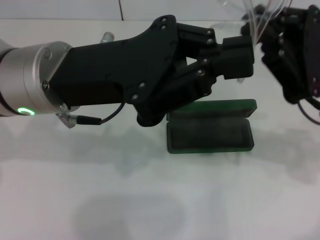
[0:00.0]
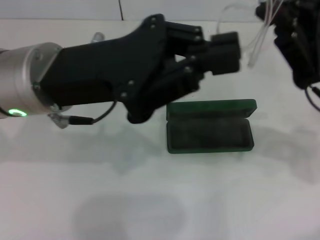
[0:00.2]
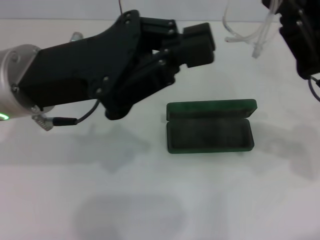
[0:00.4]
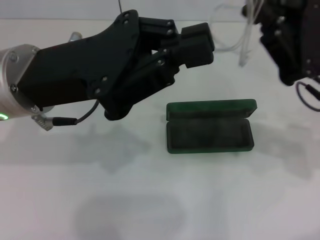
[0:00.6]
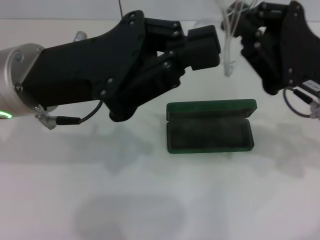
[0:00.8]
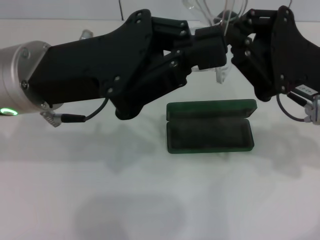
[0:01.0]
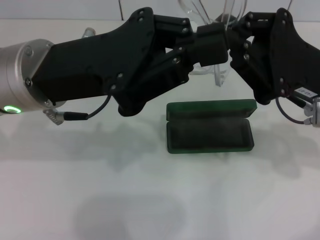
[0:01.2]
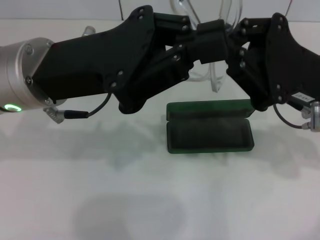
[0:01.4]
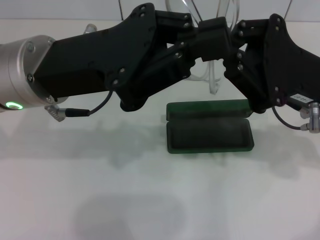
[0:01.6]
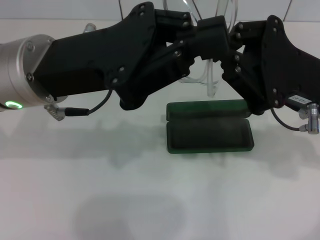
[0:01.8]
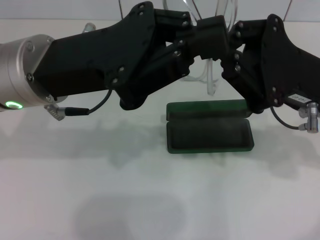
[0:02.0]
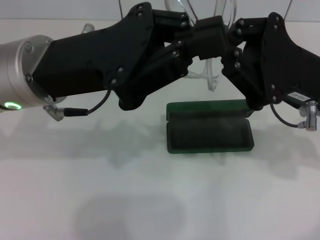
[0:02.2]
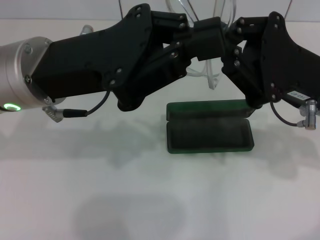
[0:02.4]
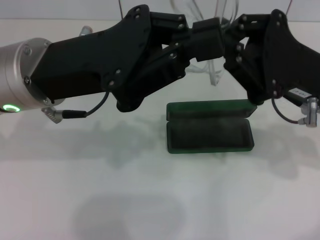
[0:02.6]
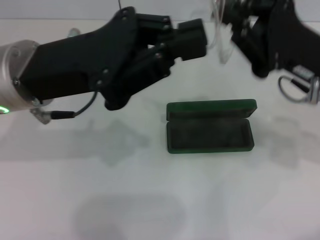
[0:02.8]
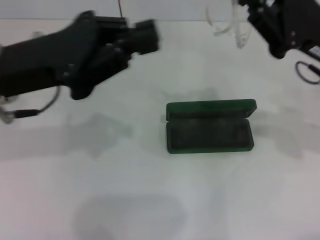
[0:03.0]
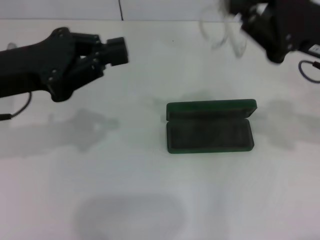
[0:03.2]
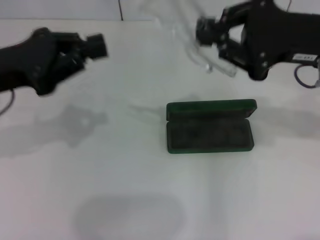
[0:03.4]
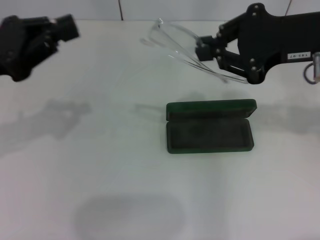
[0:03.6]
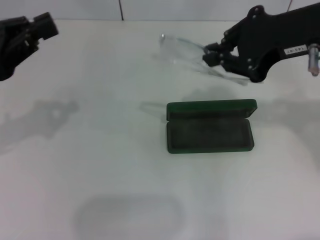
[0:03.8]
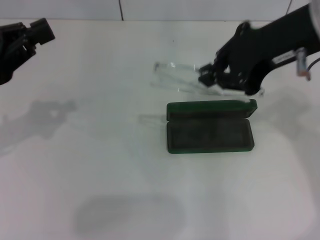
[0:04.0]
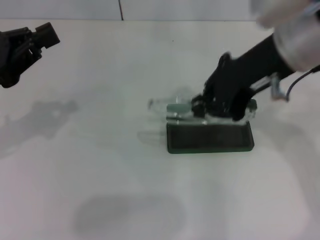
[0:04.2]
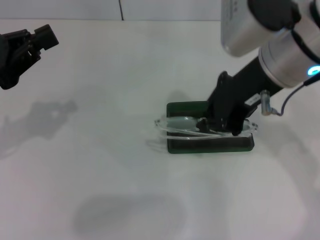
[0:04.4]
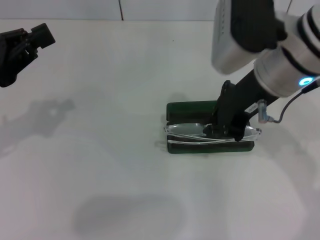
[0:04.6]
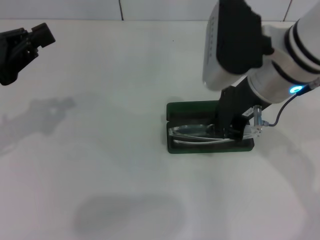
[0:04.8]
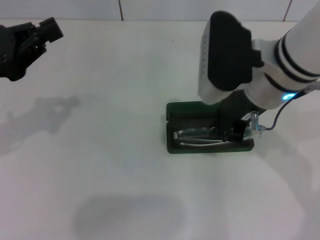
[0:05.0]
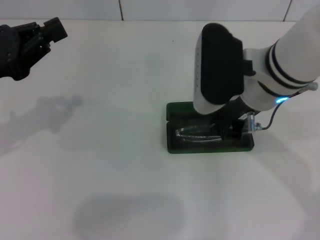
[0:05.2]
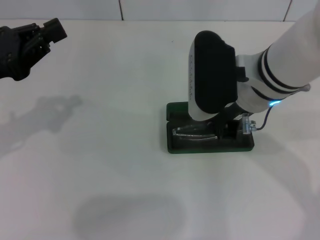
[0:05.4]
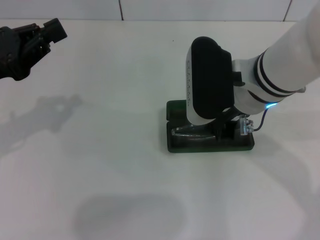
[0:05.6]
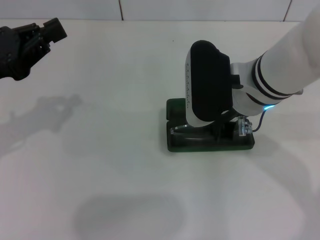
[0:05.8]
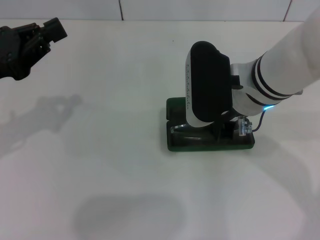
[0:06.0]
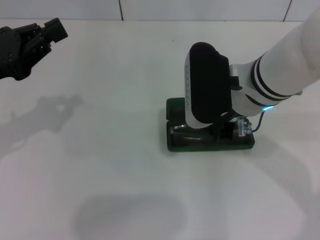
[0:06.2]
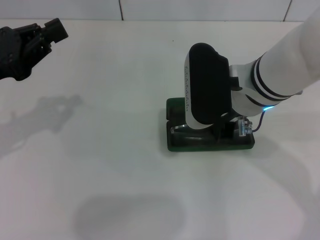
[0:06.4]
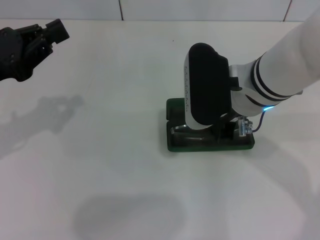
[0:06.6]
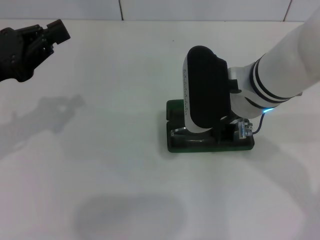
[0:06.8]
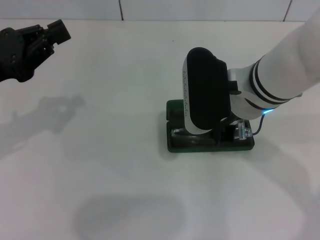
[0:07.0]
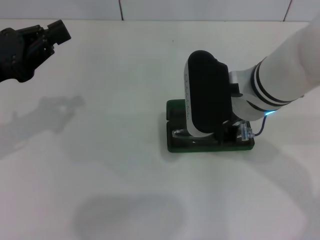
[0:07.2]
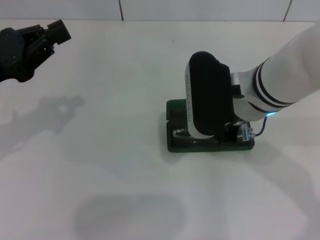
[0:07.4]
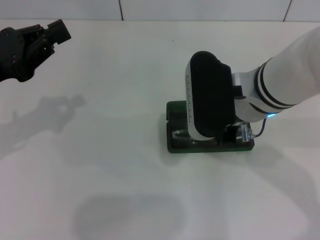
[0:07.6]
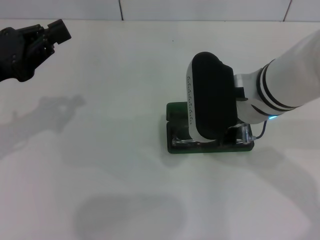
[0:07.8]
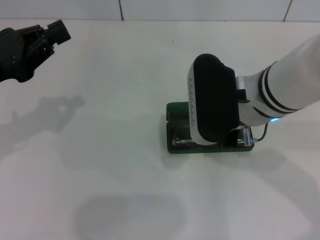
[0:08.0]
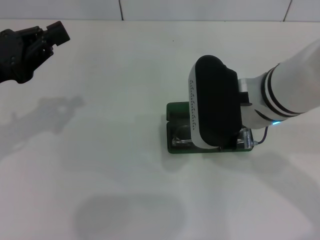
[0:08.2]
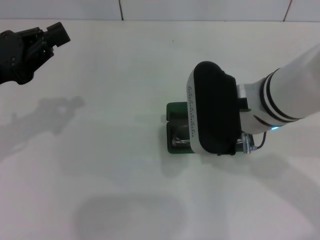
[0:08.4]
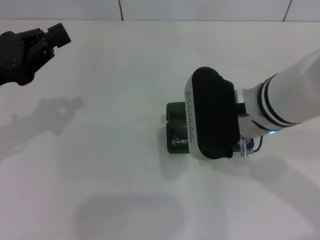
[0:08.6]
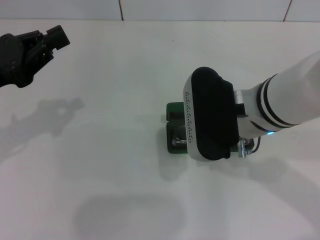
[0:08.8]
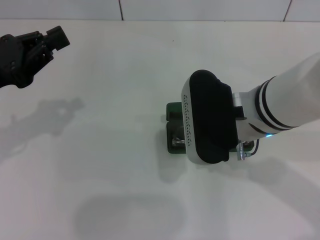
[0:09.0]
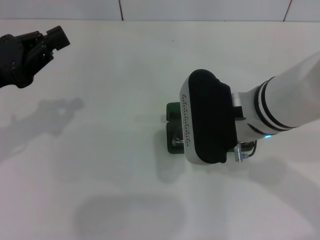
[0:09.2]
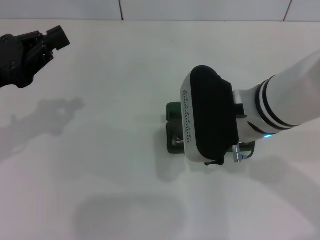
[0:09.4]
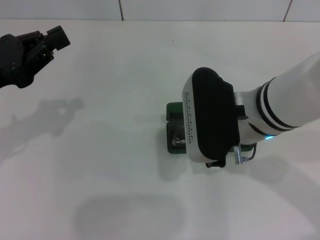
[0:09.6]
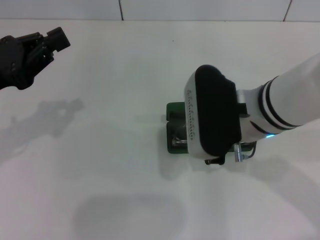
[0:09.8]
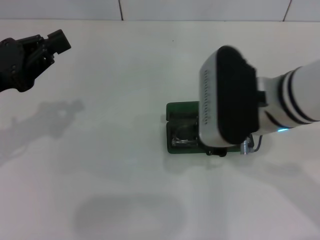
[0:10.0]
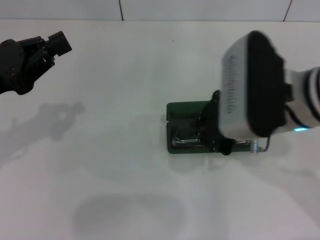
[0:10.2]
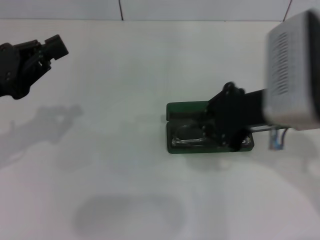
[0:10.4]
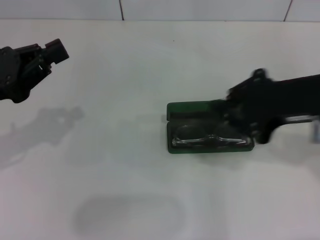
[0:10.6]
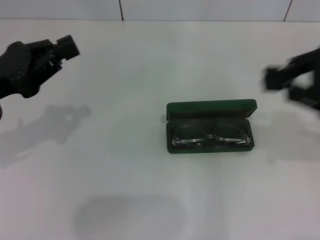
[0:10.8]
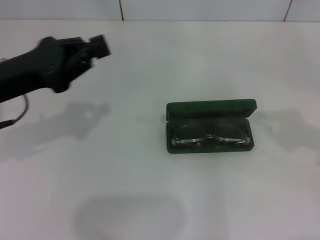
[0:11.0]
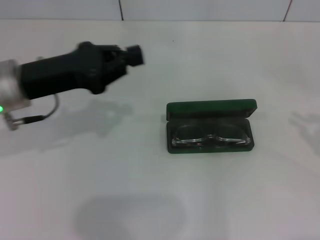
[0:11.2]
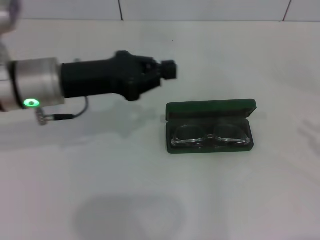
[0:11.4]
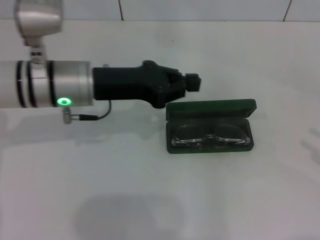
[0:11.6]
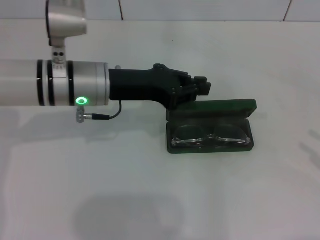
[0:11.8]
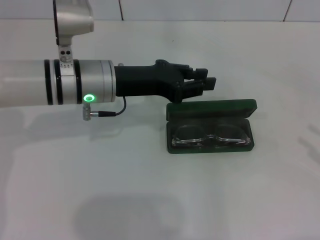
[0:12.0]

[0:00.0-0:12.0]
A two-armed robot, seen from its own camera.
Step, 0:02.0 to 0:07.6: Put the glasses into the case with your right hand.
0:01.6 to 0:03.0: The left gripper is displaced to the left by about 5 cm.
0:03.0 to 0:04.4: The left gripper moves to the left, about 10 cm, while the right gripper heads to the left and upward, covering approximately 15 cm.
0:04.4 to 0:06.0: The right gripper shifts approximately 10 cm downward.
0:06.0 to 0:09.0: The grippers move only a little.
0:09.0 to 0:10.4: The right gripper goes approximately 5 cm to the right.
0:10.4 to 0:12.0: The left gripper is displaced to the right and forward by approximately 20 cm. The right gripper shifts some 25 cm to the right.

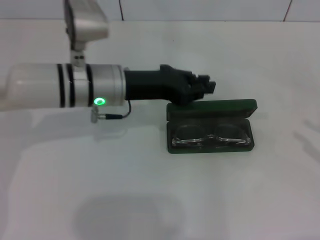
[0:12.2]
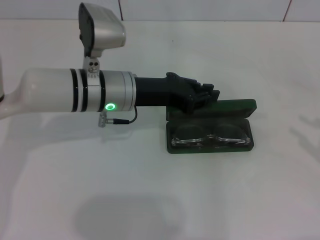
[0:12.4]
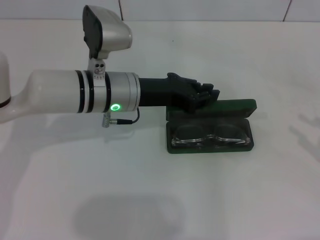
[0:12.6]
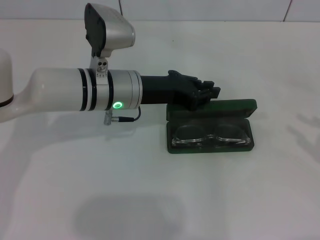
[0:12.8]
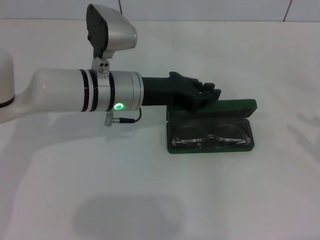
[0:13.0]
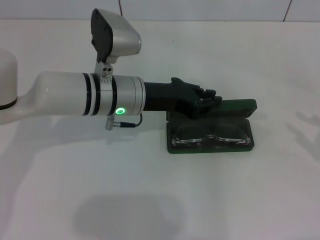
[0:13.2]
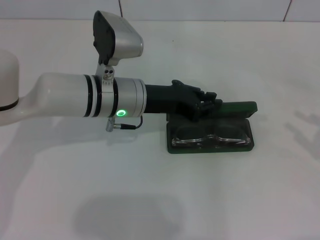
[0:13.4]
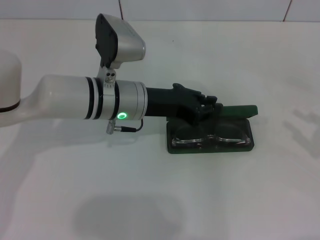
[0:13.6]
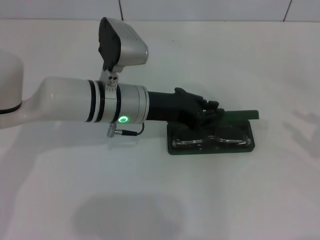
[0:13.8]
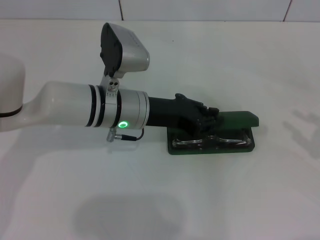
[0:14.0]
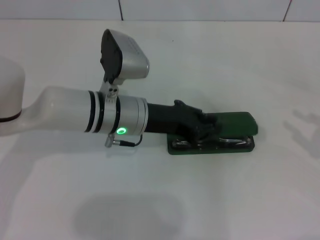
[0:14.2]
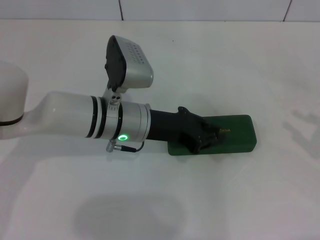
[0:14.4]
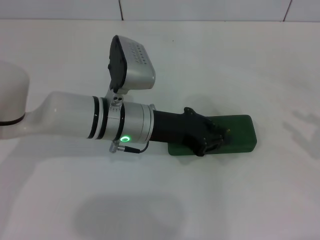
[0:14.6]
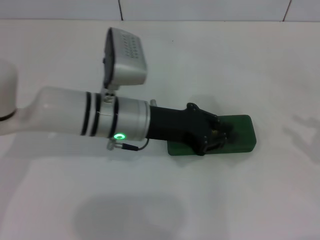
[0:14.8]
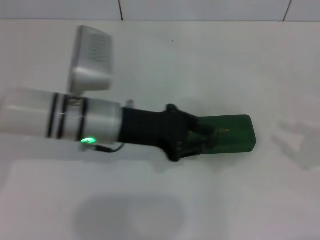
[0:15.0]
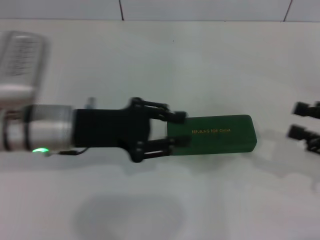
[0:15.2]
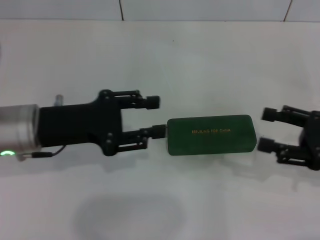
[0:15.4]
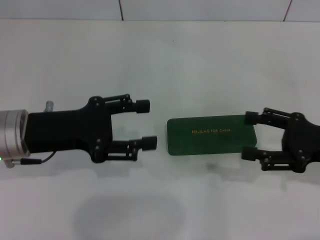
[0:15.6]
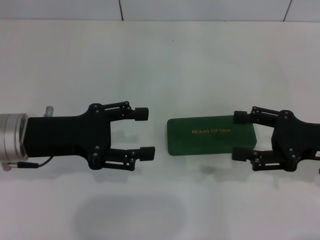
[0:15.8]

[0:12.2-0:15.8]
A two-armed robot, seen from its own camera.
Step, 0:12.2 to 0:14.4: Close the glasses case with your left hand.
0:12.2 to 0:14.0: The grippers move only a little.
0:14.0 to 0:15.8: The left gripper is displaced to the left and backward by about 15 cm, and opens its fingers, while the right gripper is displaced to the left and forward by some 15 cm, and opens its fingers.

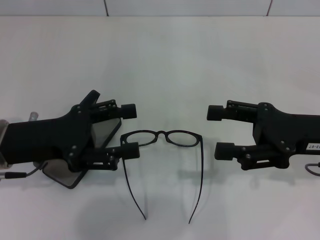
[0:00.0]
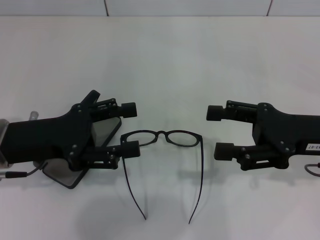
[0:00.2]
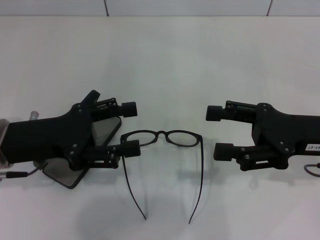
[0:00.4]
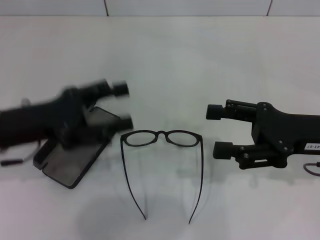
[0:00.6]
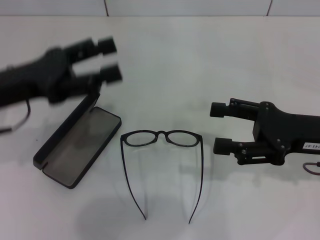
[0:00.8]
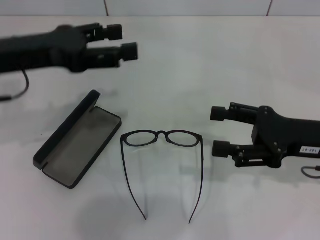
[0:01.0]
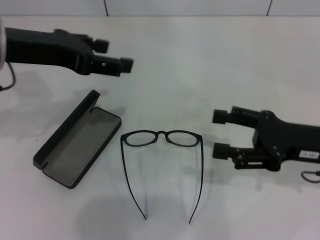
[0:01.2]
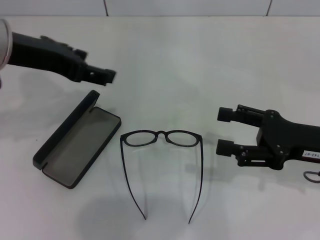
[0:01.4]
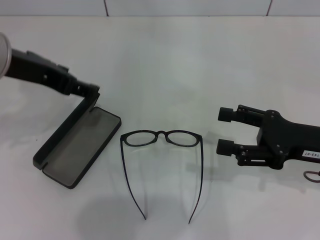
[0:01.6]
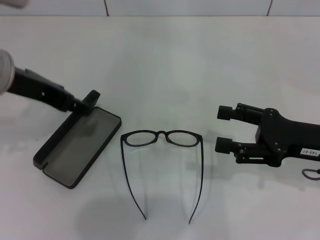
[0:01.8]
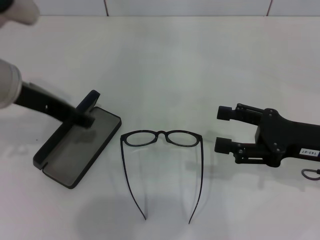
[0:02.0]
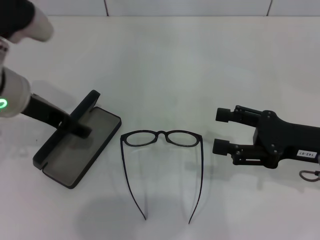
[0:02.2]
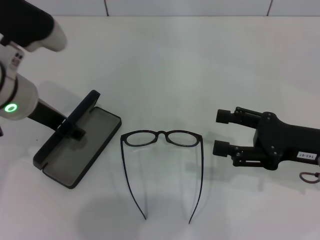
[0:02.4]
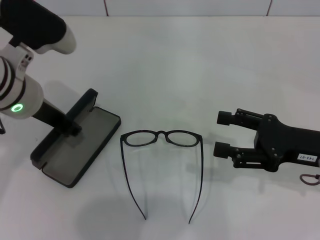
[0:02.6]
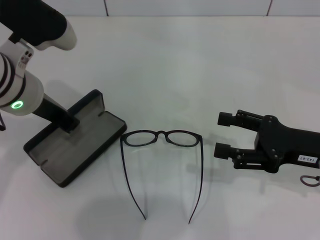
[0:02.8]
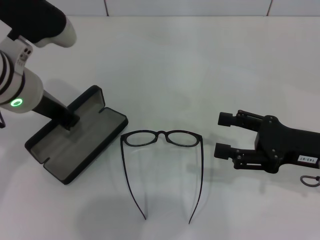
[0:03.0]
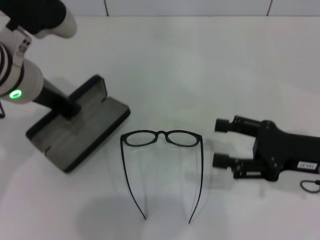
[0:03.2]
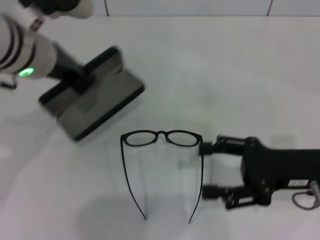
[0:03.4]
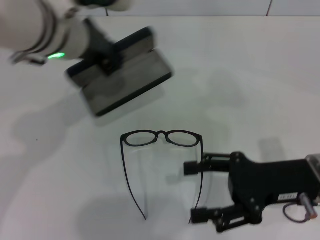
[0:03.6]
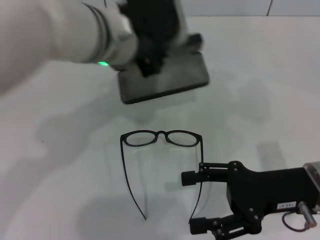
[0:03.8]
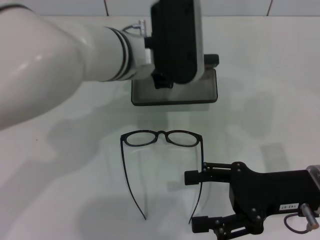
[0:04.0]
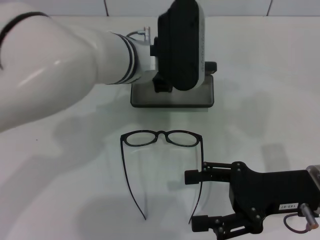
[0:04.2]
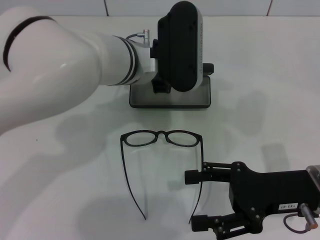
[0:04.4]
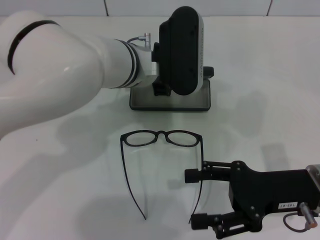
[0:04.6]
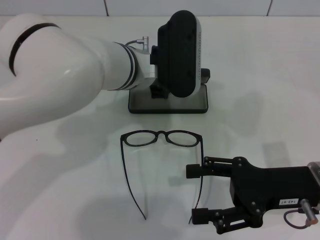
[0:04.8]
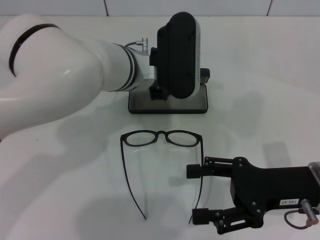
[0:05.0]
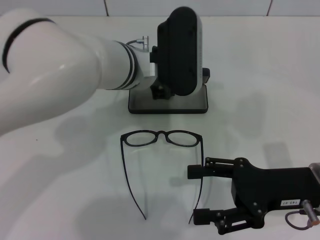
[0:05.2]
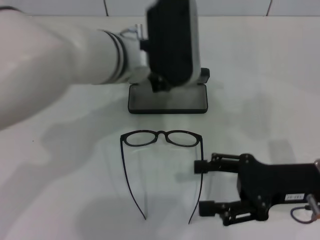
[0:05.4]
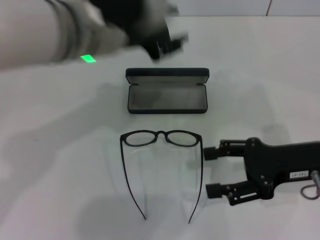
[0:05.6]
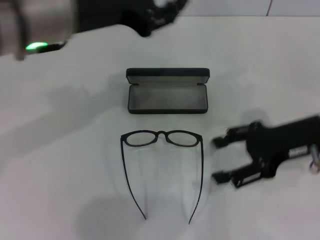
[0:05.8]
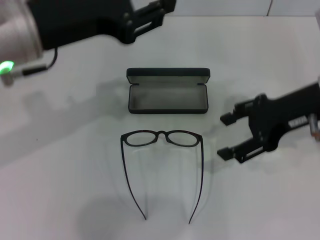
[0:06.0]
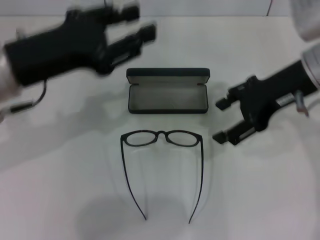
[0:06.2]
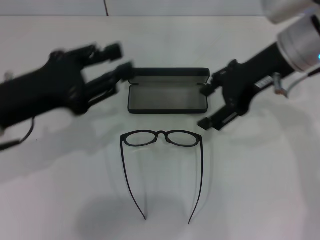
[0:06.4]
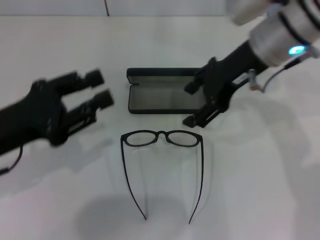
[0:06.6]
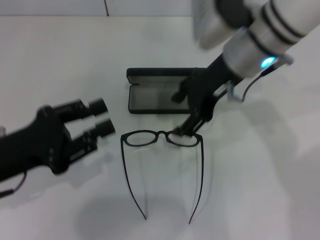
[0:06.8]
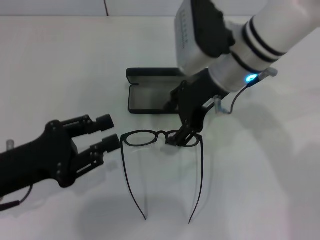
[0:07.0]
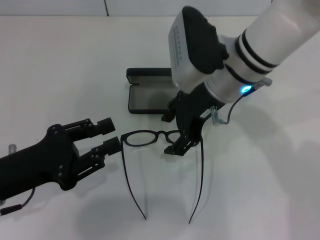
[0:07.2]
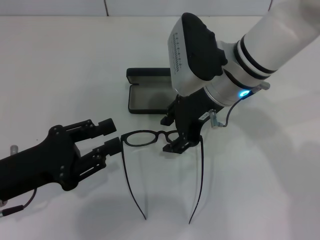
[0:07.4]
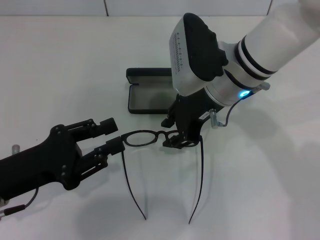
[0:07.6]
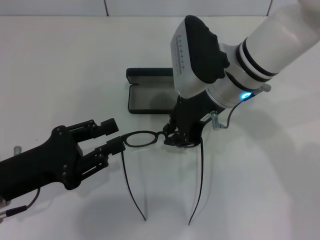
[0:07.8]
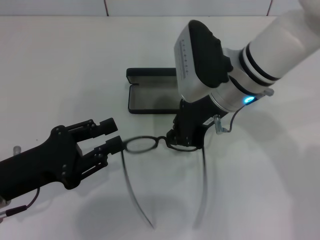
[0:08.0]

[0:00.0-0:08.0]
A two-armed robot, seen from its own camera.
Step, 0:00.0 to 0:02.6: Grab the glasses case with your left hand.
Step, 0:02.8 to 0:05.0: Place the glasses case in the center of the table with your left hand.
Step, 0:05.2 to 0:07.8: Grab the eyeglass frame with your right hand.
0:00.0 to 0:01.6: The left gripper heads upward and forward, covering about 15 cm.
0:01.6 to 0:03.2: The left gripper changes place by approximately 5 cm, and closes its fingers.
0:03.2 to 0:04.8: The left gripper travels to the right by roughly 10 cm.
0:04.8 to 0:06.4: The right gripper goes some 20 cm upward, forward and to the left; the left gripper is displaced to the left and backward by roughly 20 cm.
0:06.4 to 0:08.0: The right gripper travels to the left and downward by roughly 10 cm, and closes up, while the left gripper goes approximately 10 cm downward.
